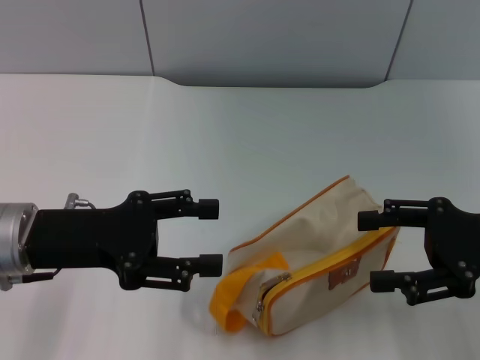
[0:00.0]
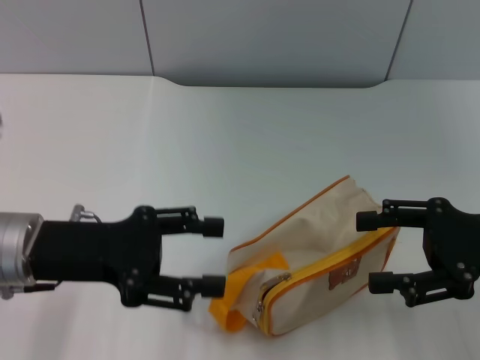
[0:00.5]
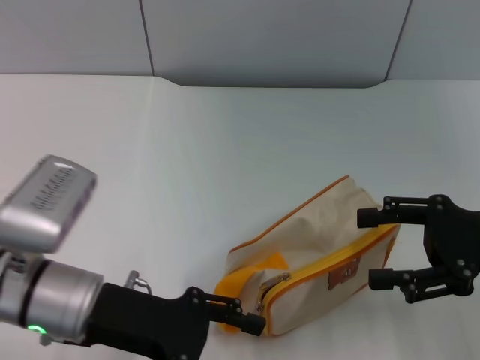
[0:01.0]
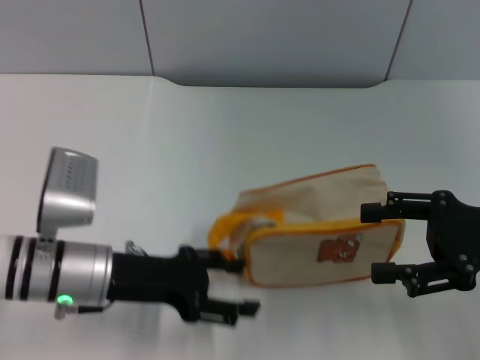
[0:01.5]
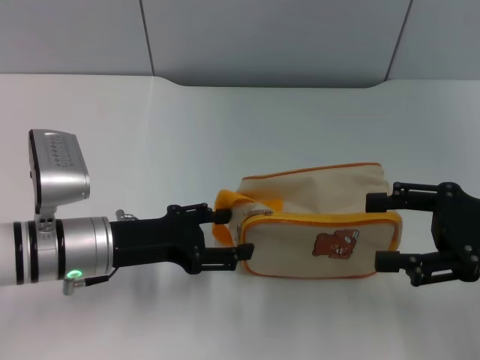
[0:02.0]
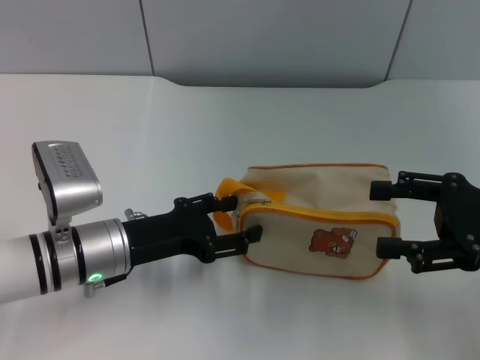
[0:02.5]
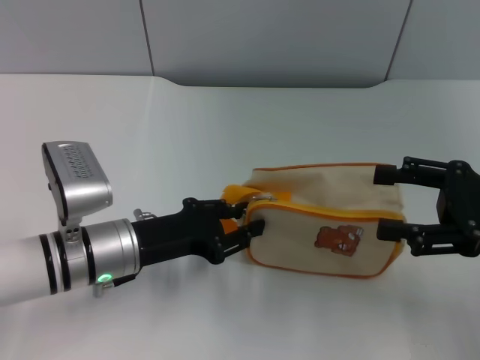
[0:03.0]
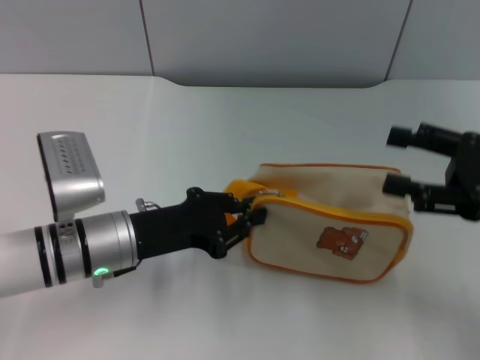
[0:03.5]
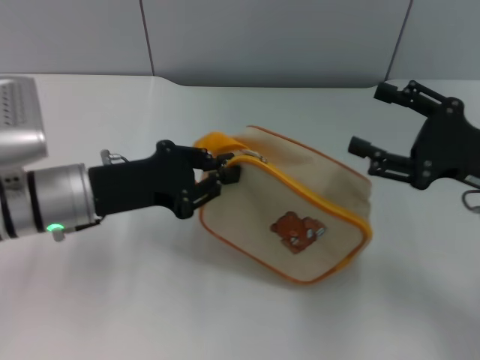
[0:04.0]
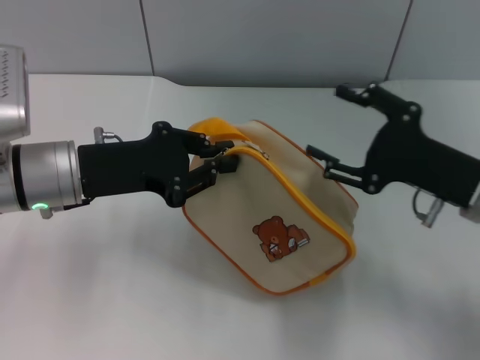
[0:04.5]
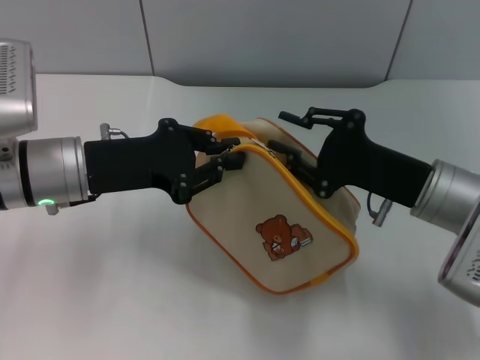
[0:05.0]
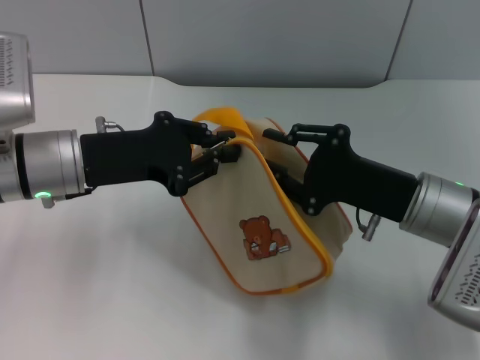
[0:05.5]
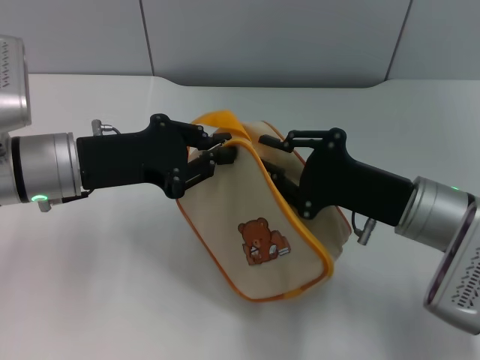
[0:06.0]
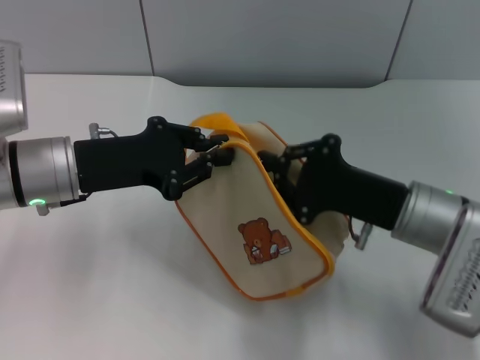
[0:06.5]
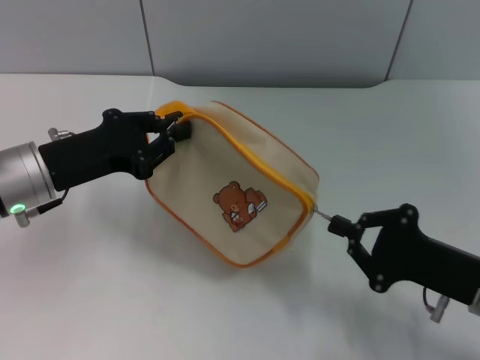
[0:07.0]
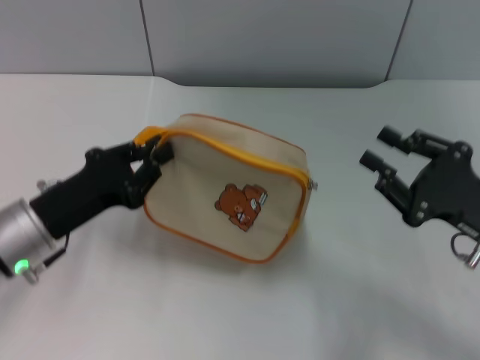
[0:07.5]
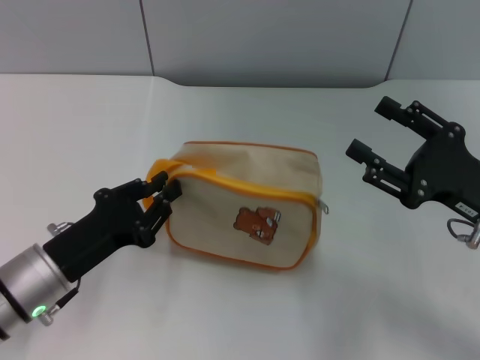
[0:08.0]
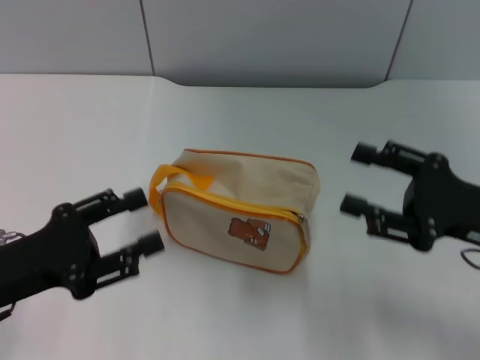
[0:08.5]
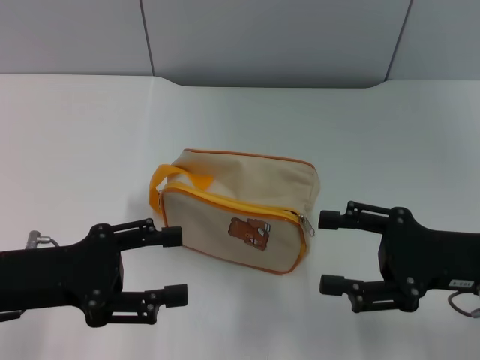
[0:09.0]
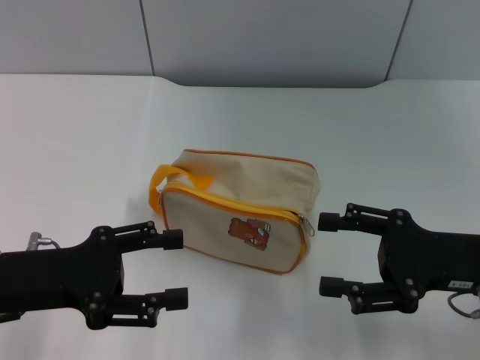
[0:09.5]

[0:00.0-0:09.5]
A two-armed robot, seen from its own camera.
Step, 0:00.0 to 0:04.0: Pick up the bag with left gripper.
Step, 0:04.5 to 0:07.0: Unzip the zipper of bag with right gripper.
Step, 0:07.5 to 0:08.0: Place the bag on the table with left gripper.
0:00.0 to 0:02.0: The left gripper goes roughly 5 cm downward.
0:02.0 to 0:04.0: The left gripper shifts by some 5 cm, and closes its fingers.
0:04.0 to 0:05.5: The right gripper goes some 10 cm to the left, and closes up.
0:05.5 to 0:07.5: The right gripper moves to the right, roughly 10 cm. The left gripper goes approximately 10 cm downward and backward.
0:07.5 to 0:09.5: The left gripper moves approximately 5 cm, and opens. Meanwhile the right gripper opens up.

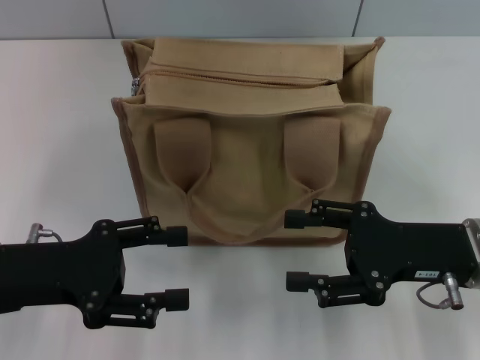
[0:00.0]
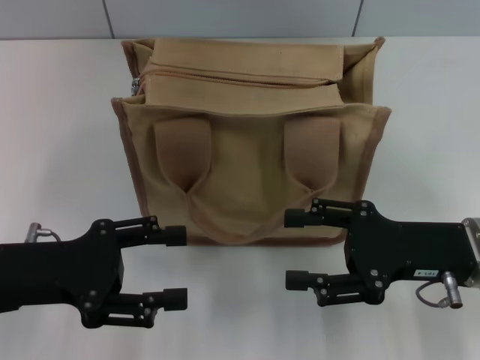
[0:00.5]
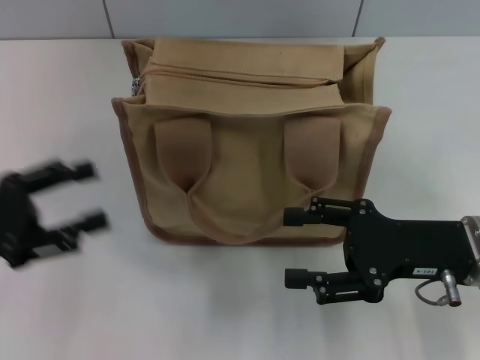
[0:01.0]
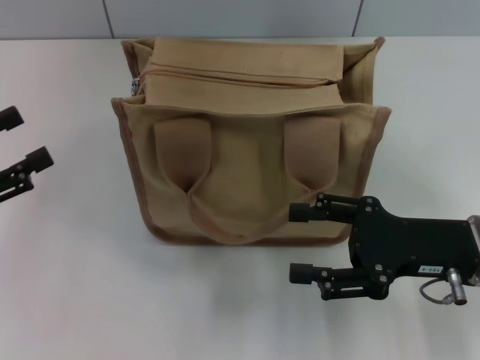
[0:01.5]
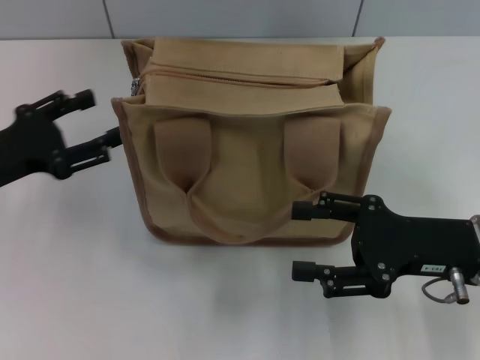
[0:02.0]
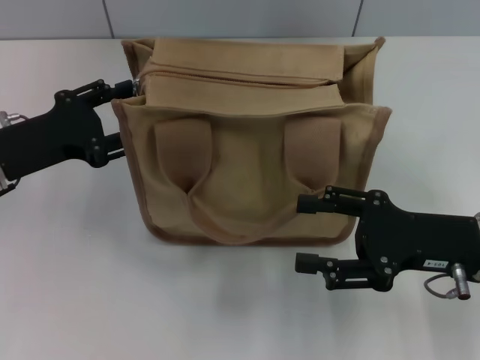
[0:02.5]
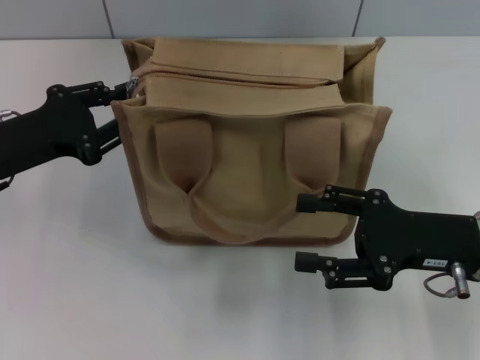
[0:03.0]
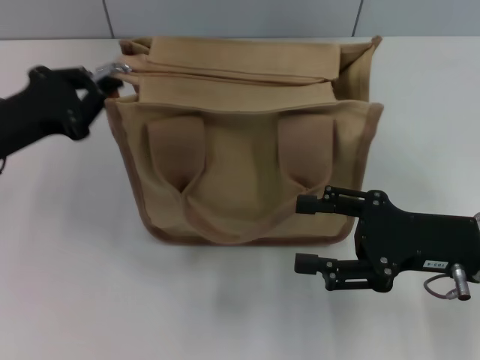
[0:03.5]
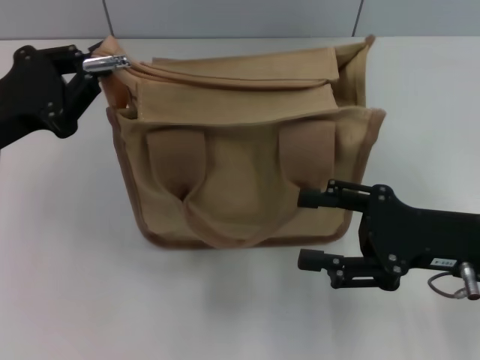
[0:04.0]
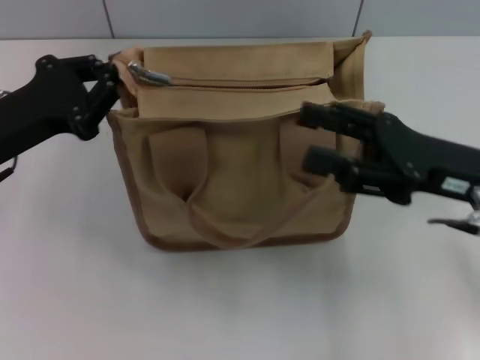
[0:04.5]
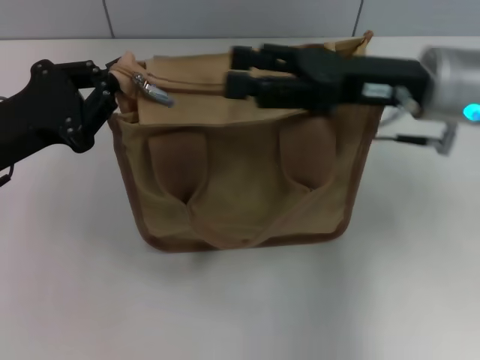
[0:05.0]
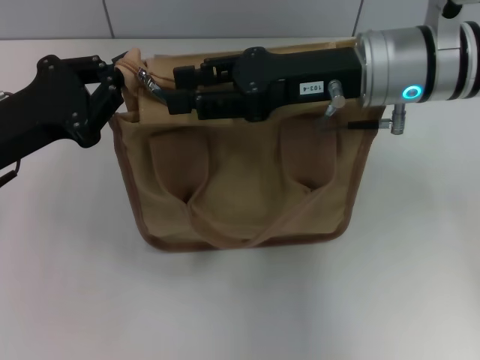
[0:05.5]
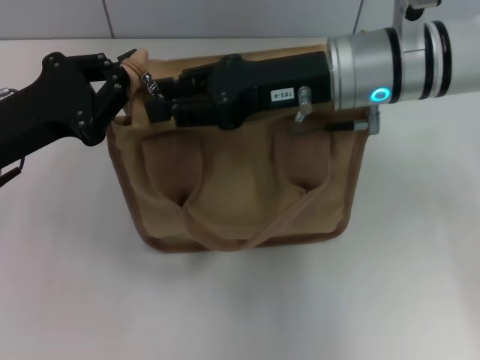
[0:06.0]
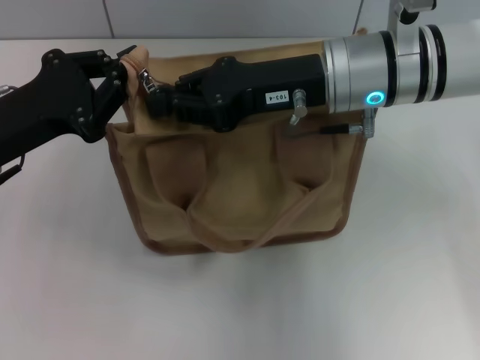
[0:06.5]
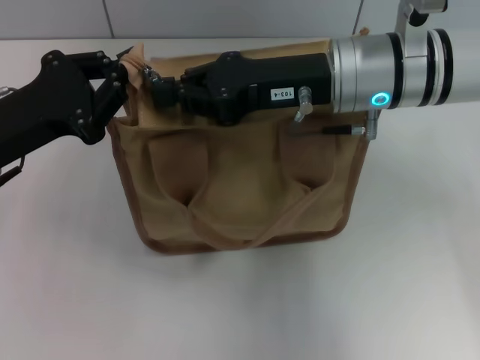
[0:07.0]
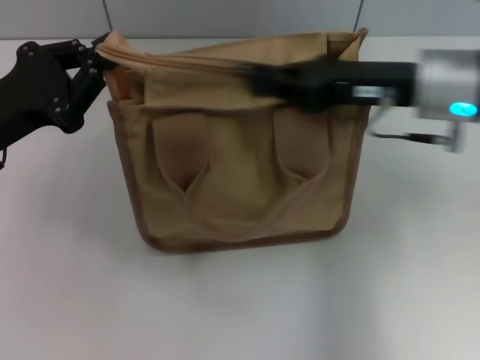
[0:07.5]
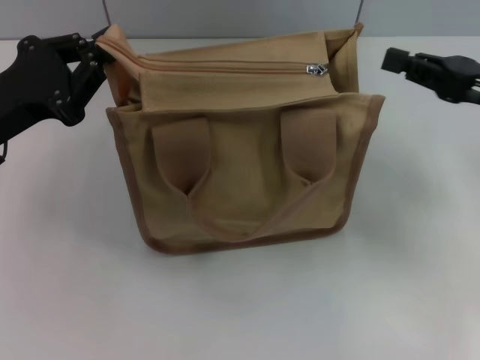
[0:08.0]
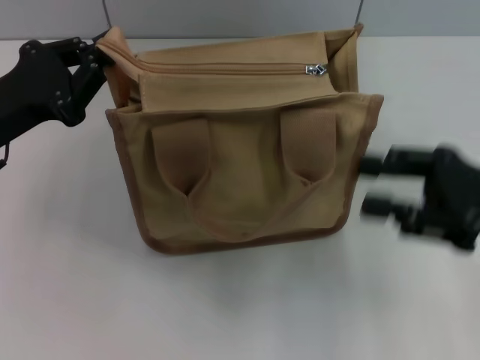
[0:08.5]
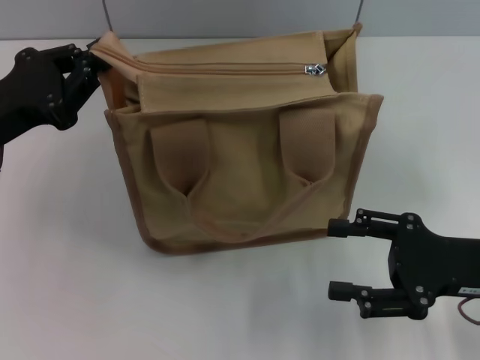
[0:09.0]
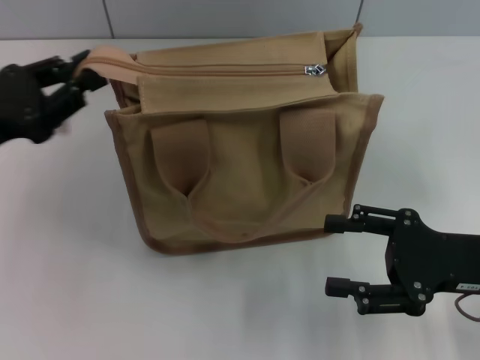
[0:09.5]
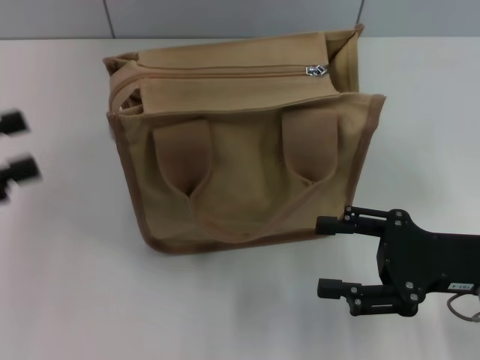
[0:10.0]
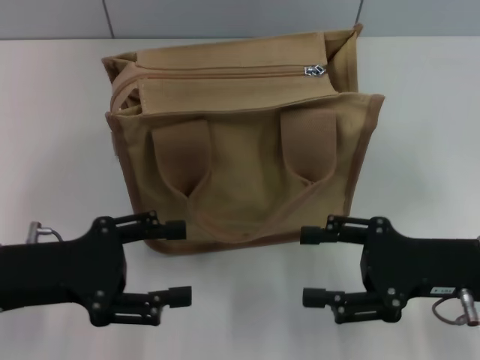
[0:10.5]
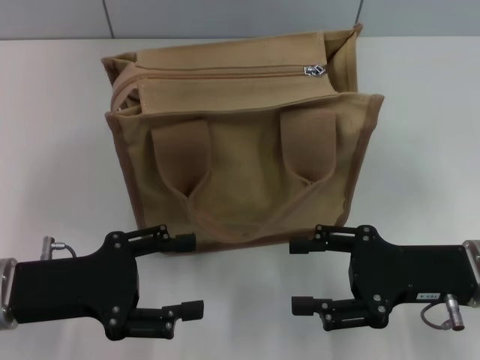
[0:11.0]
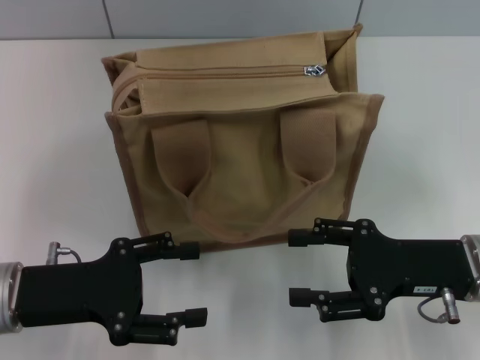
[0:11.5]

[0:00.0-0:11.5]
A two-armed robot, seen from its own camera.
Step, 0:00.0 to 0:07.5: Pull up the zipper with your right hand.
Step, 0:08.0 to 0:09.5: Grab the zipper with your left hand.
0:00.0 to 0:02.0: The left gripper travels forward by about 5 cm.
0:02.0 to 0:04.0: The left gripper closes its fingers.
0:04.0 to 0:06.0: The right gripper shifts approximately 20 cm to the left, forward and upward, and closes its fingers.
0:06.0 to 0:07.5: The right gripper travels to the right by about 10 cm, and closes up.
0:07.5 to 0:09.5: The right gripper shifts roughly 15 cm backward, downward and to the right, and opens its fingers.
0:09.5 to 0:11.5: The left gripper goes approximately 10 cm downward, backward and to the right, and opens up.

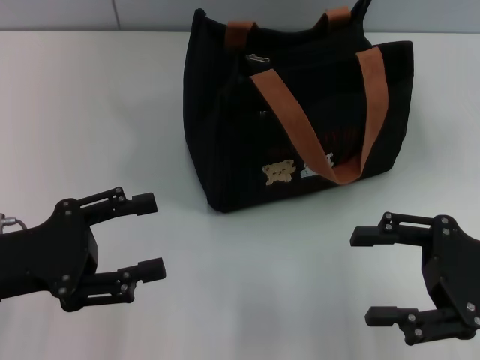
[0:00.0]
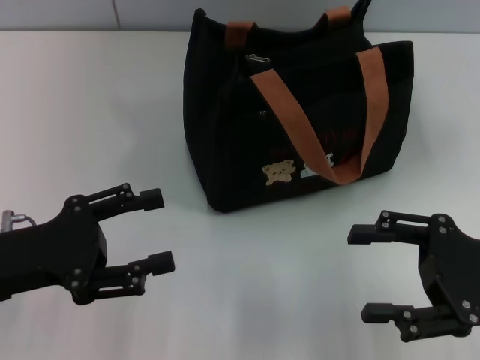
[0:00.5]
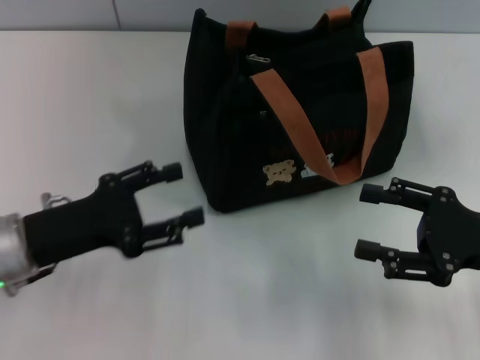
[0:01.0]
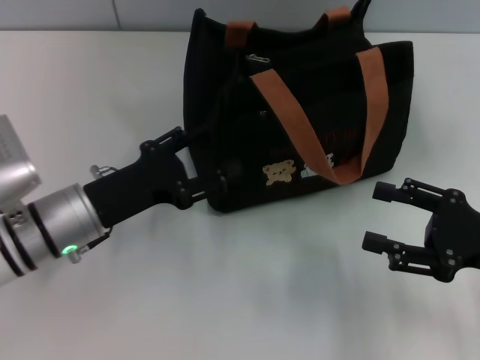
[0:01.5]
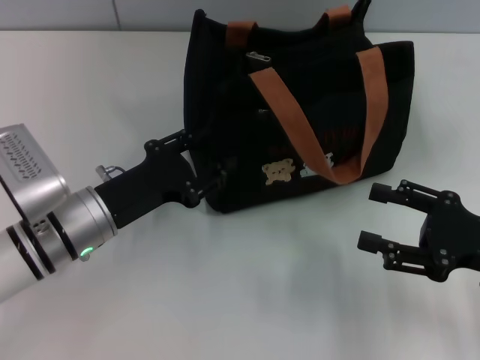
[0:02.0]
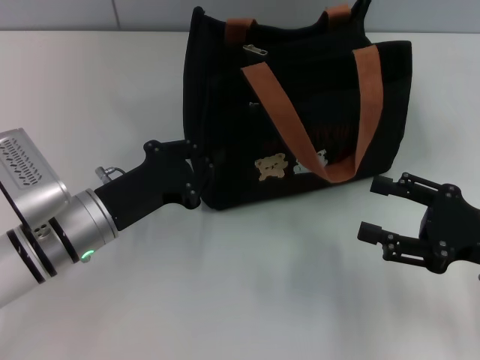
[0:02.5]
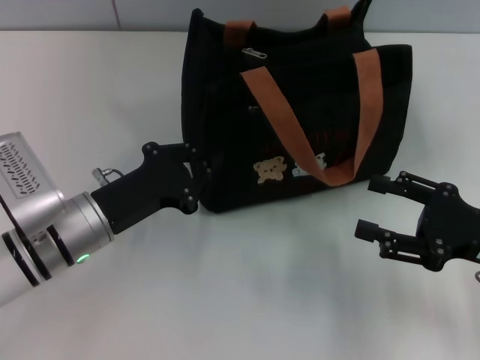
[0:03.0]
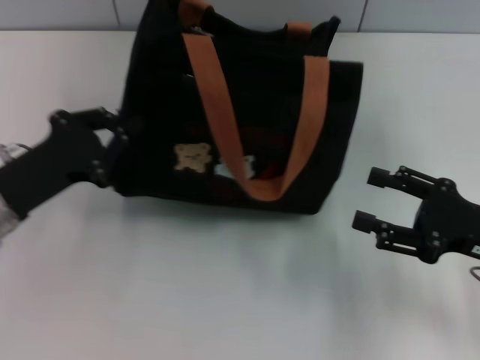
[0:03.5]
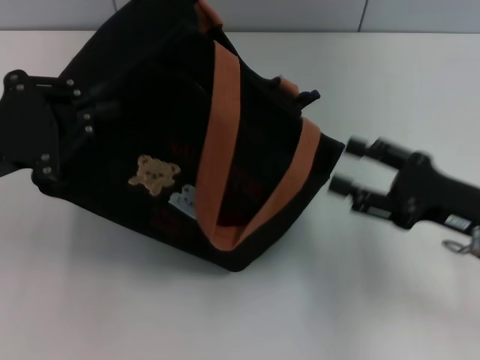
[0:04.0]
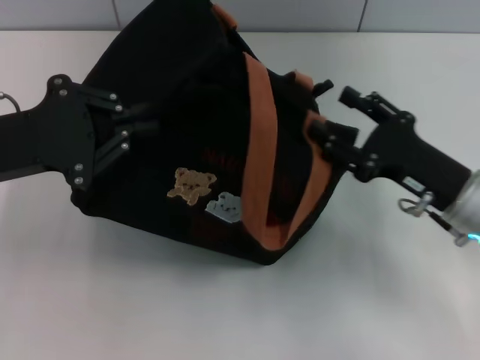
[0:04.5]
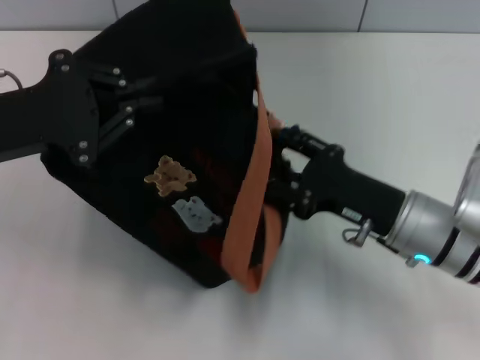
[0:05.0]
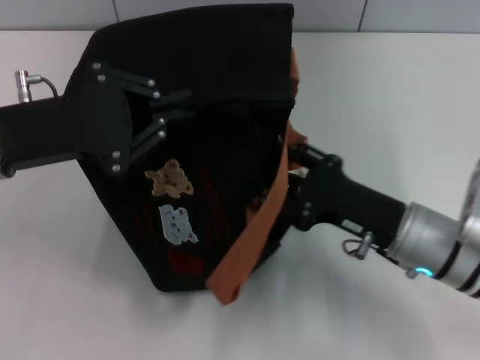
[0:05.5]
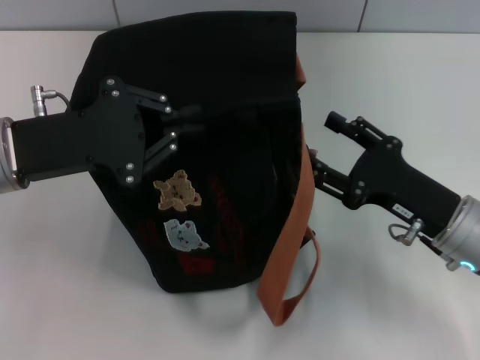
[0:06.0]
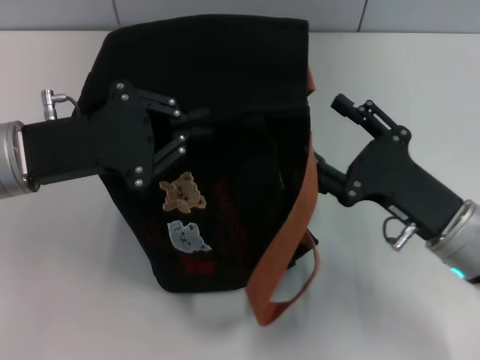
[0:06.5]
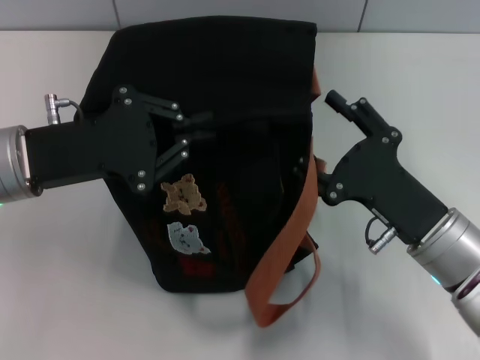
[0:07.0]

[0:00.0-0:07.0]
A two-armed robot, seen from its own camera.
0:00.0 to 0:02.0: The left gripper moves to the right, forward and downward, roughly 15 cm.
0:02.0 to 0:03.5: The left gripper is displaced to the left by roughly 5 cm, and closes its fingers.
0:03.5 to 0:05.0: The right gripper is displaced to the left by approximately 10 cm, while the left gripper goes roughly 10 cm upward.
